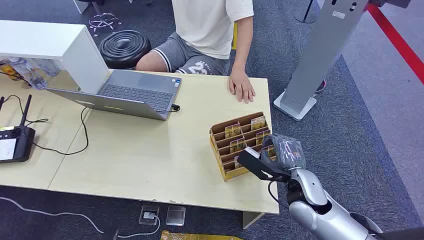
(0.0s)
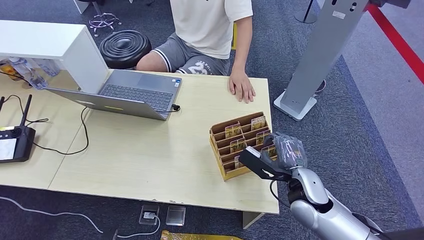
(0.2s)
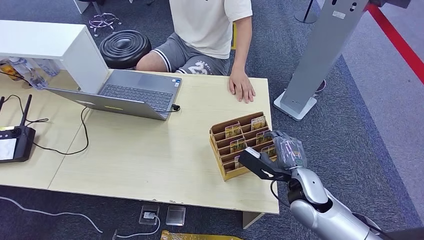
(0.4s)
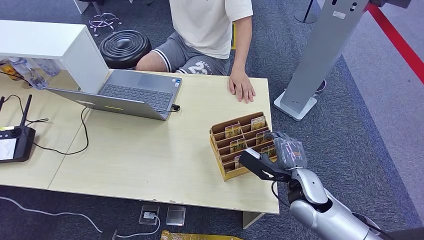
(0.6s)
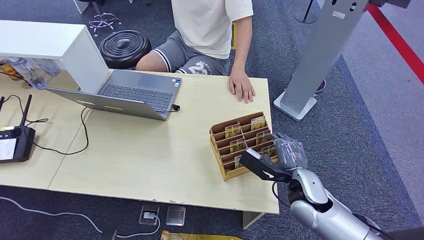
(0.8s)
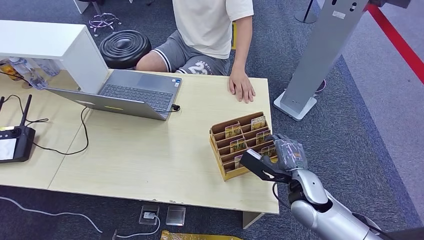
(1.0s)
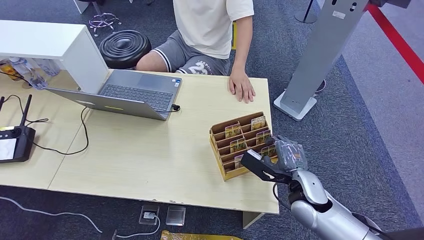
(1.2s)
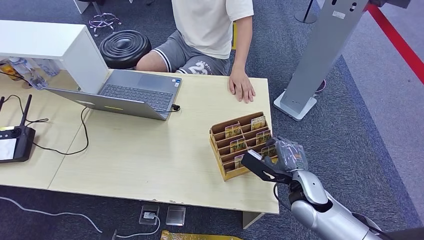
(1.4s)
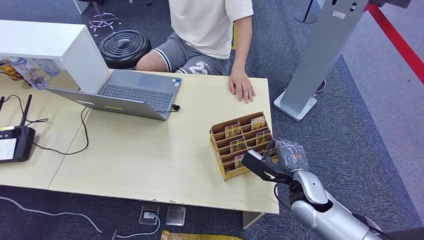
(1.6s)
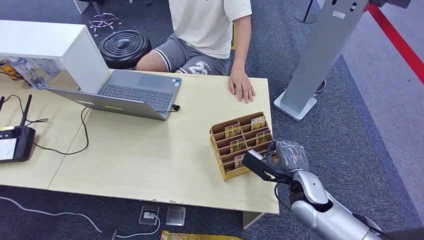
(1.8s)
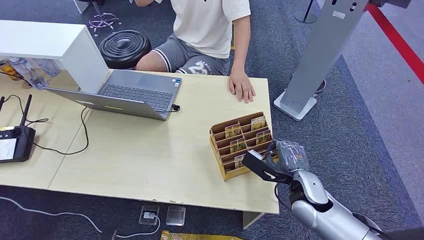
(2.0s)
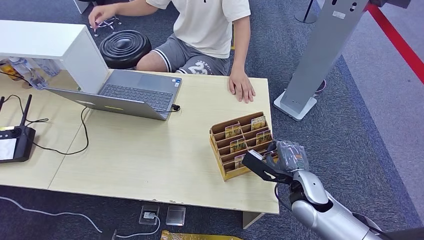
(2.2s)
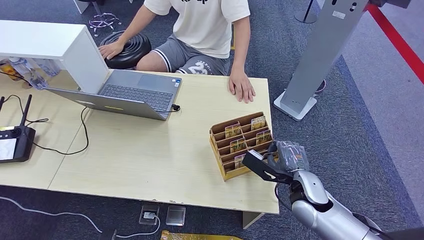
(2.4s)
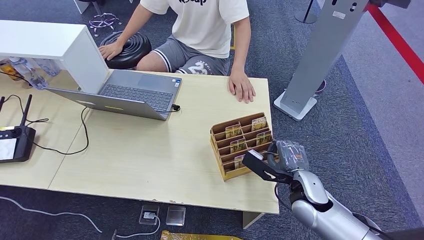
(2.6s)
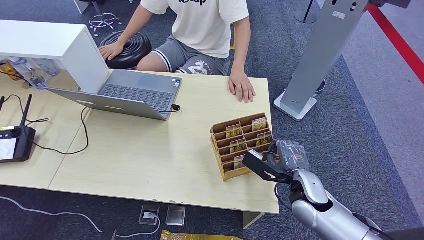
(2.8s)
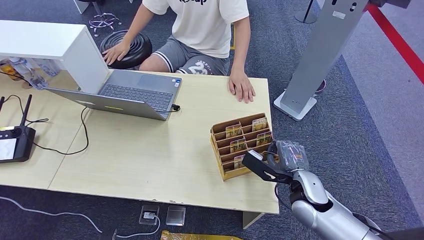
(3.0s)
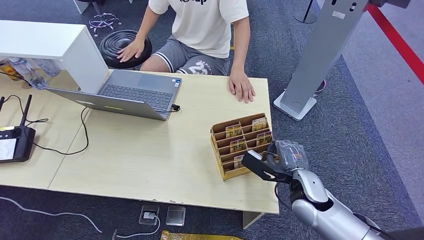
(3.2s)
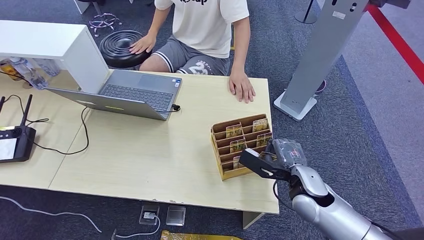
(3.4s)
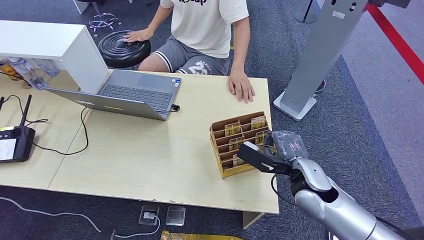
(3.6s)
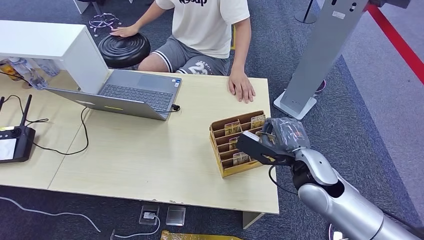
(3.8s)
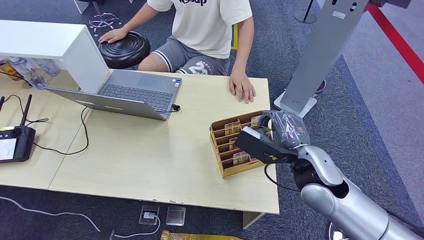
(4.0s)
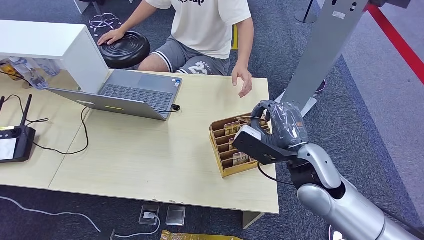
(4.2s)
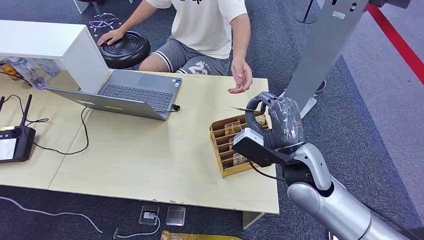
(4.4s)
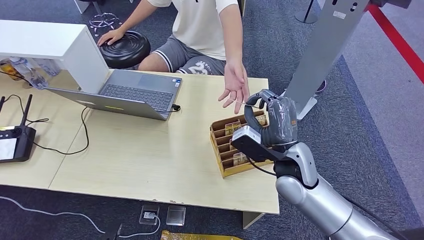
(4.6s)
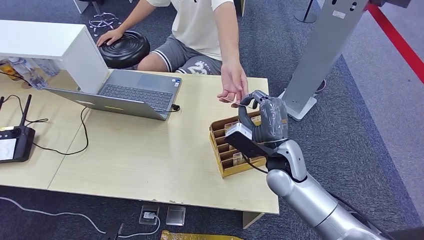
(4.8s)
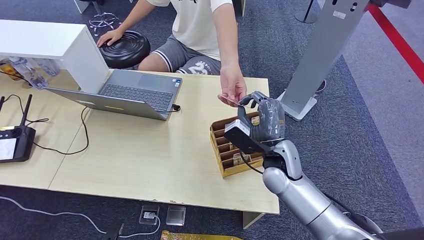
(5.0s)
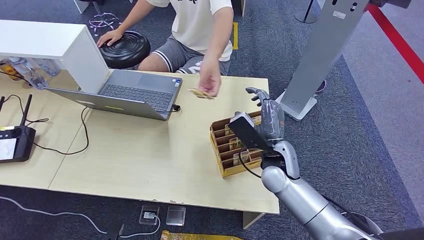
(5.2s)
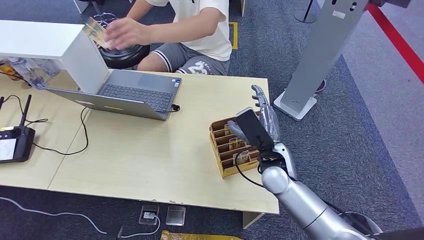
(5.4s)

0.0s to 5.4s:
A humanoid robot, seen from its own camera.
Step, 0.0s to 3.4s: Pick up the key card from the card box.
Step, 3.8s to 5.4s: Hand the key card to the target.
1.4s to 2.8s: Neither hand changes place.
2.8s to 4.0s: The right hand is displaced upward by approximately 10 cm.
4.0s to 5.4s: The right hand shifts about 10 cm downward and to the left.
